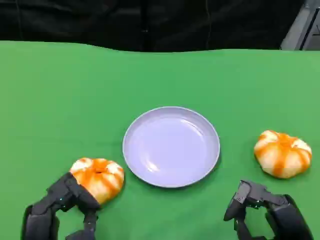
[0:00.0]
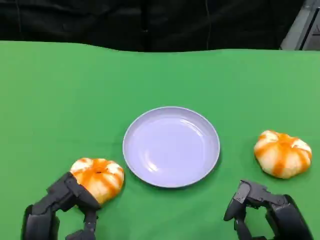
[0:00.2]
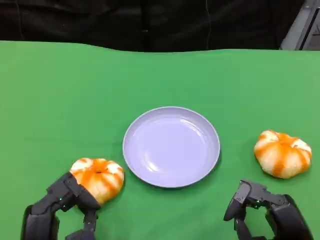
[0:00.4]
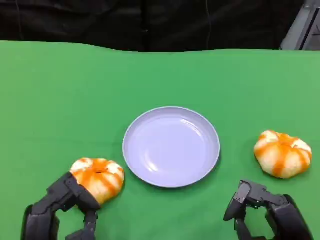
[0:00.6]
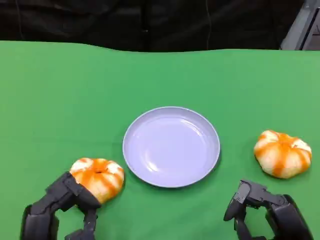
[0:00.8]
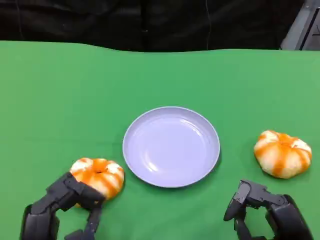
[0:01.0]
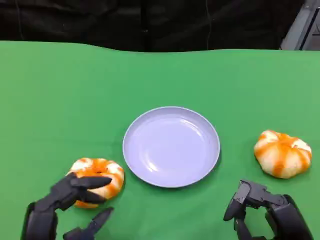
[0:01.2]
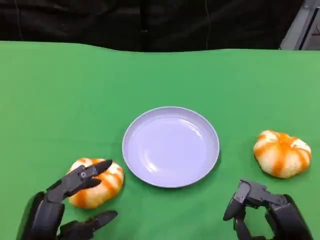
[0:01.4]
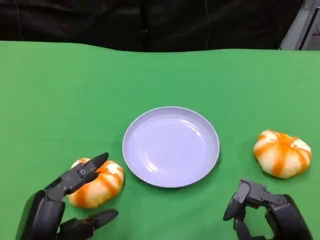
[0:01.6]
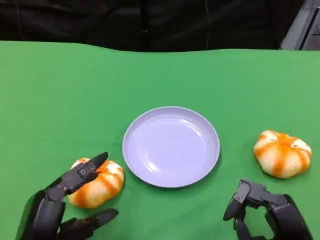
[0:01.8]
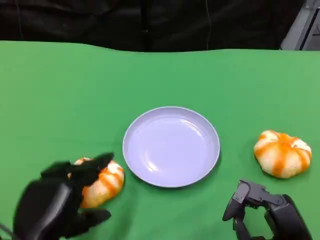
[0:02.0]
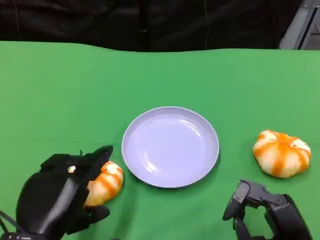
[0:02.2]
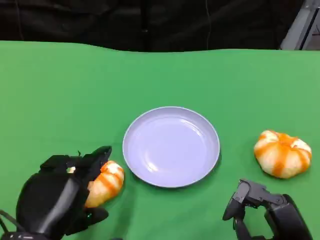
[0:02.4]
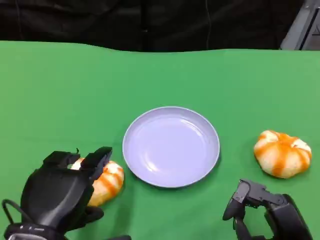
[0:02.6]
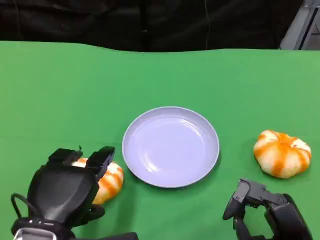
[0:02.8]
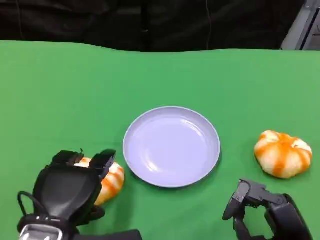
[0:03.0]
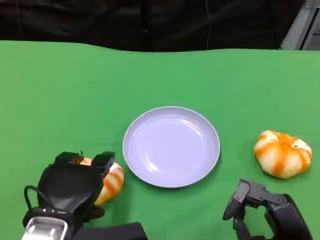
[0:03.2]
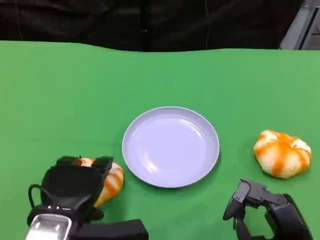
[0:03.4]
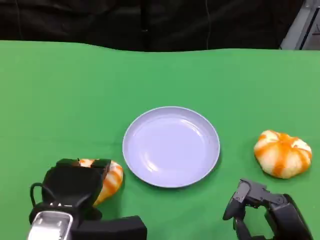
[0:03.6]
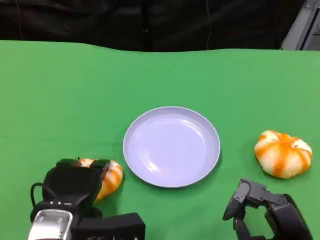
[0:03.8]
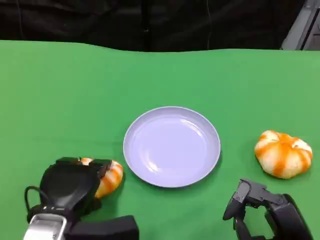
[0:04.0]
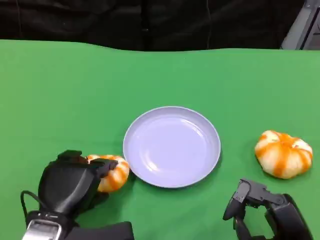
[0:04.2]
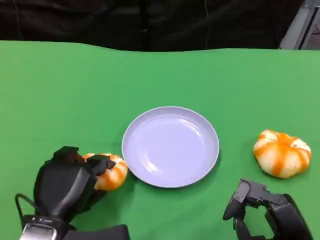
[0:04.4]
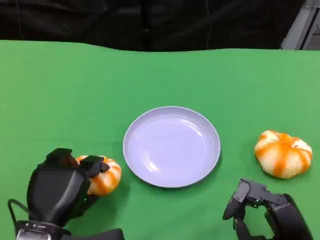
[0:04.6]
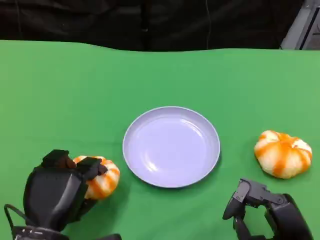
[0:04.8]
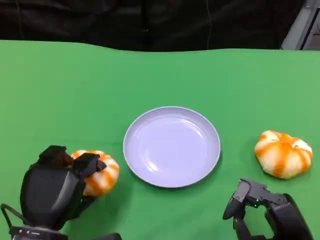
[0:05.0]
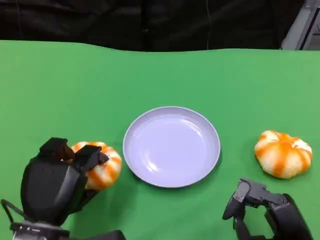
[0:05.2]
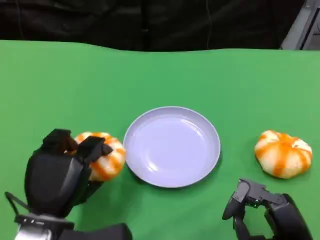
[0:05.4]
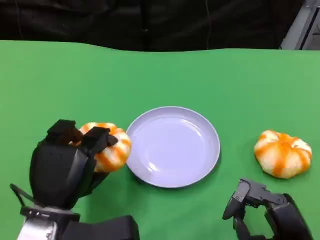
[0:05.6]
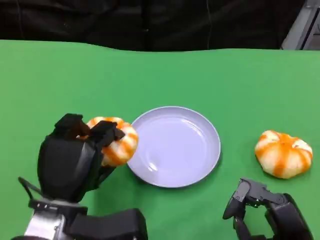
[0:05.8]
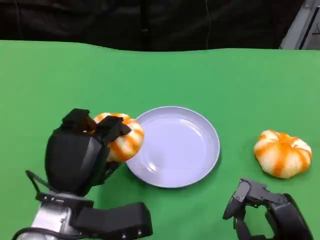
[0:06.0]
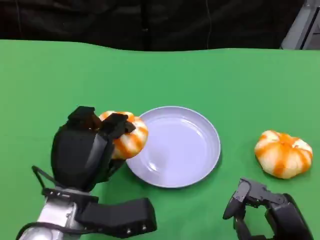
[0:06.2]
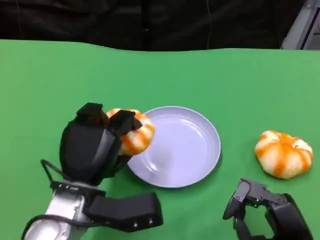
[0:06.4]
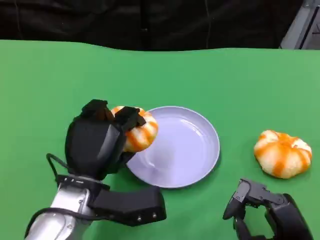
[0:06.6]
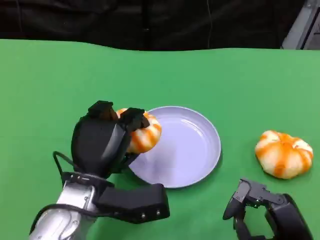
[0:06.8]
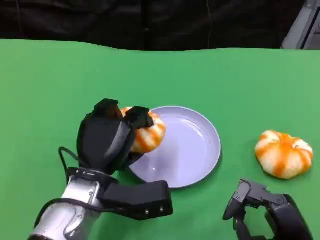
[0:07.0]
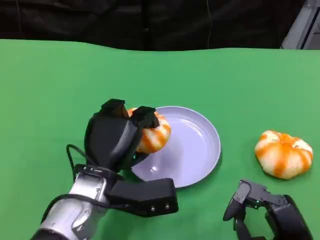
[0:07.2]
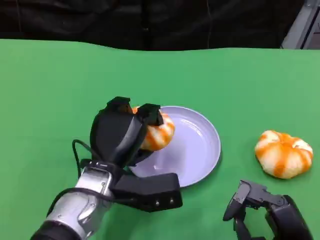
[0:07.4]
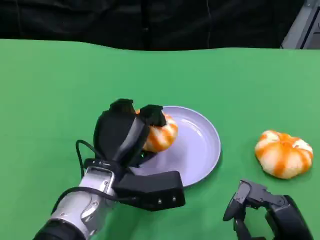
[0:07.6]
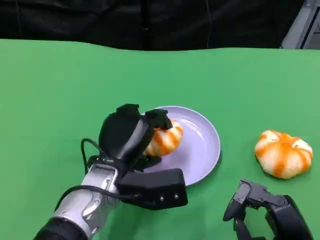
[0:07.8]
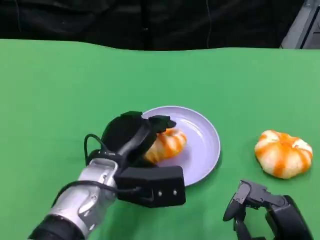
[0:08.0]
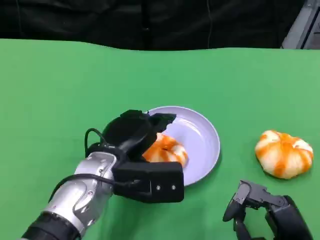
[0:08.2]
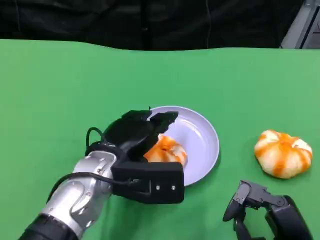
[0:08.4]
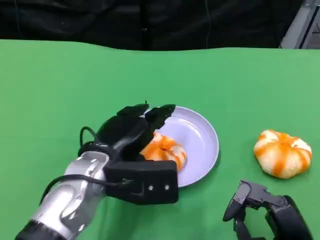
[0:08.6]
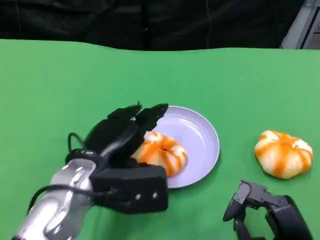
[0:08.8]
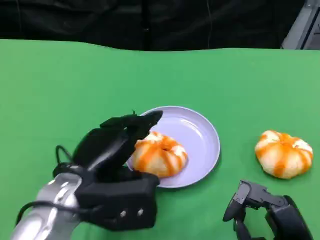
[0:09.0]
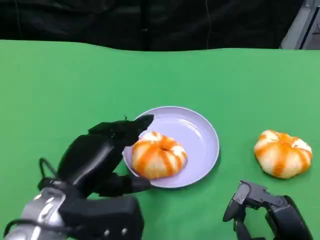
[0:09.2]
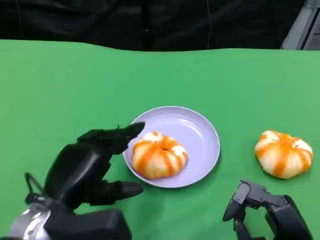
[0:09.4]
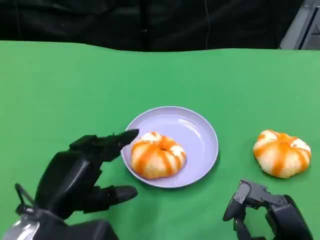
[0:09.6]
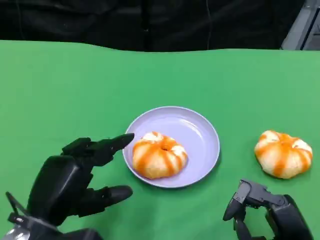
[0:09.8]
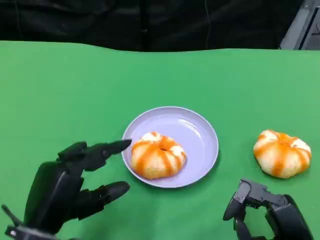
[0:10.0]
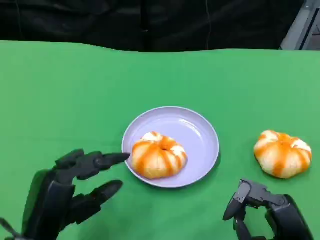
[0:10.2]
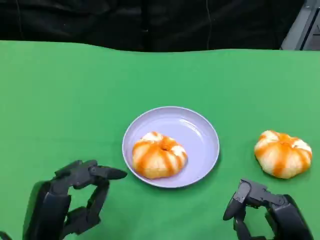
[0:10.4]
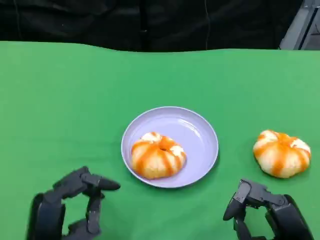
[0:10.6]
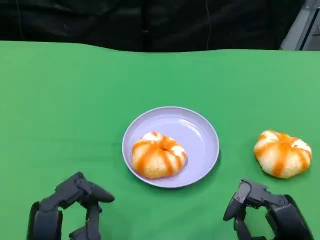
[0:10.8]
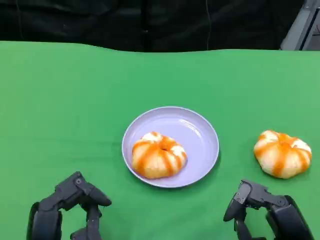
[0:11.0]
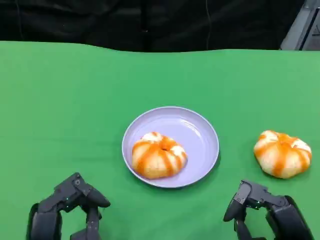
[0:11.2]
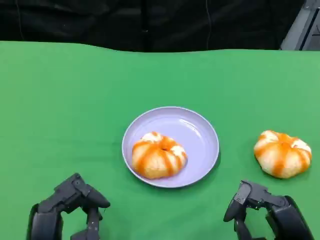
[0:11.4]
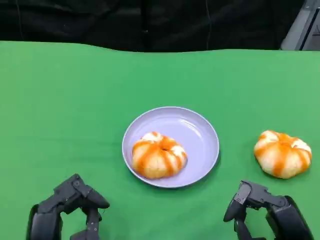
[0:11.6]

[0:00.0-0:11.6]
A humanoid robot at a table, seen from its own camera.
Task of the whole recording: Grasp the bread from the table and place it into the plate.
0:01.4 to 0:02.8: The left hand changes place by roughly 5 cm.
0:02.8 to 0:04.4: The left hand is displaced downward by approximately 5 cm.
0:04.4 to 0:05.8: There are only small adjustments of the hands.
0:05.8 to 0:07.2: The left hand travels to the right by approximately 5 cm.
0:07.2 to 0:08.8: The left hand changes place by approximately 5 cm.
0:08.8 to 0:10.2: The left hand goes roughly 10 cm backward and to the left.

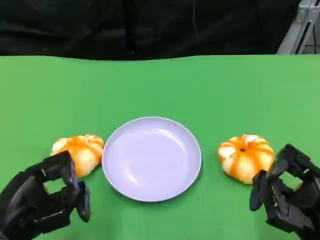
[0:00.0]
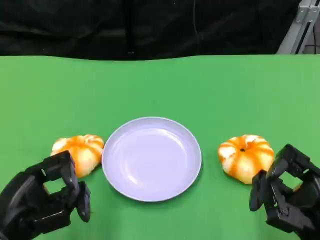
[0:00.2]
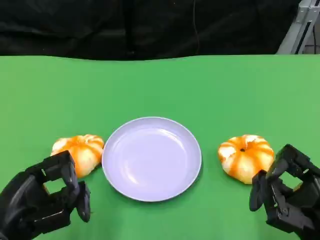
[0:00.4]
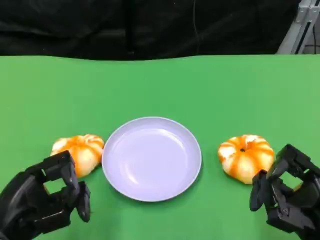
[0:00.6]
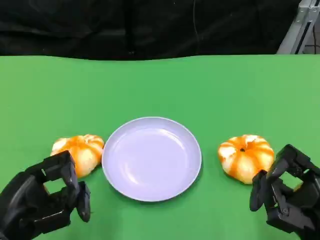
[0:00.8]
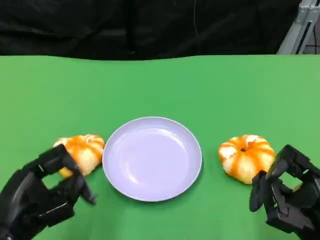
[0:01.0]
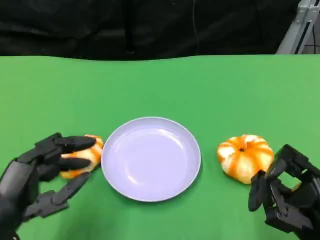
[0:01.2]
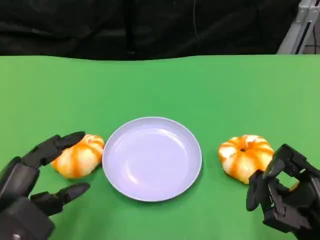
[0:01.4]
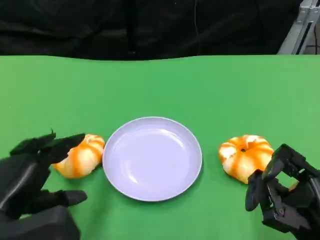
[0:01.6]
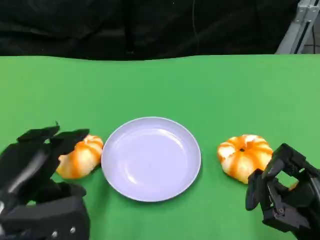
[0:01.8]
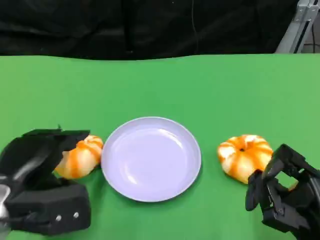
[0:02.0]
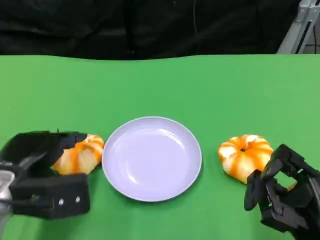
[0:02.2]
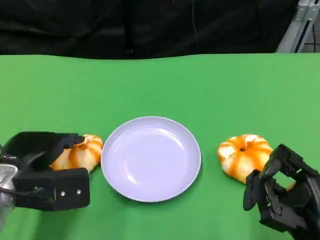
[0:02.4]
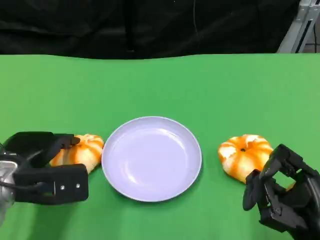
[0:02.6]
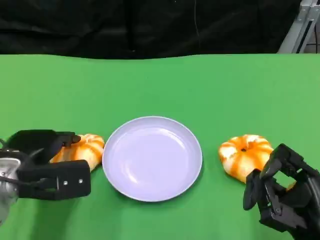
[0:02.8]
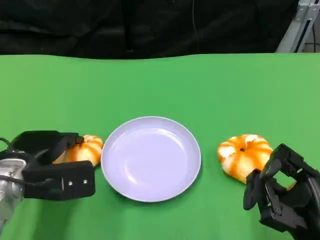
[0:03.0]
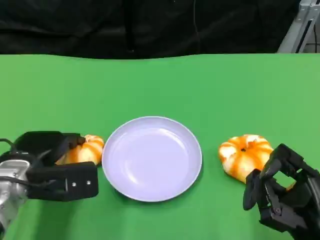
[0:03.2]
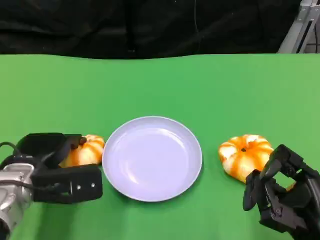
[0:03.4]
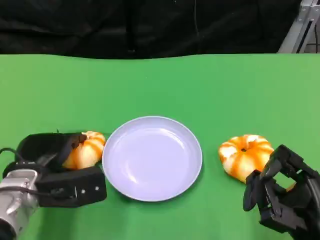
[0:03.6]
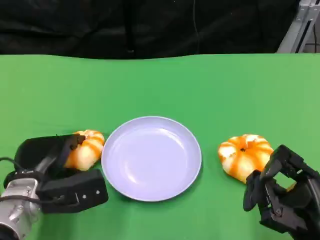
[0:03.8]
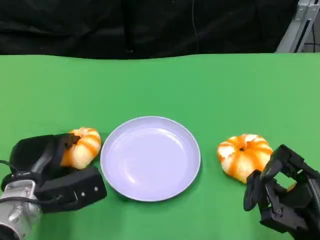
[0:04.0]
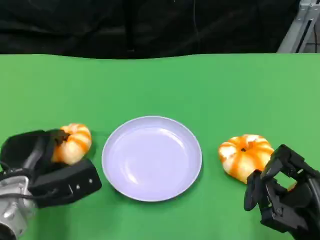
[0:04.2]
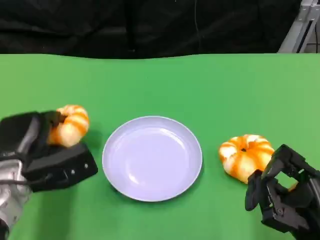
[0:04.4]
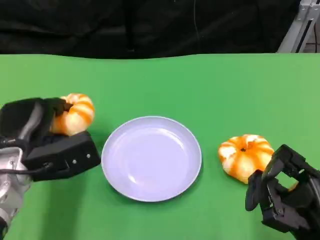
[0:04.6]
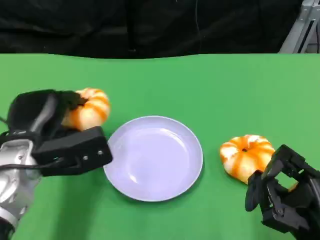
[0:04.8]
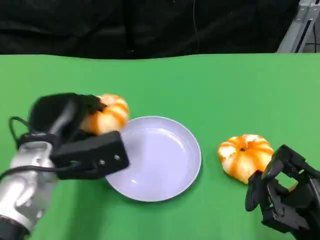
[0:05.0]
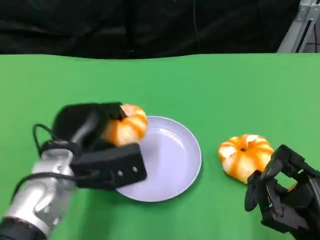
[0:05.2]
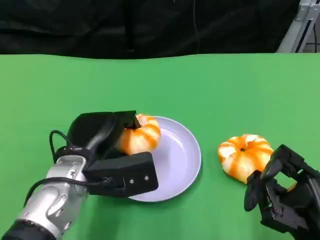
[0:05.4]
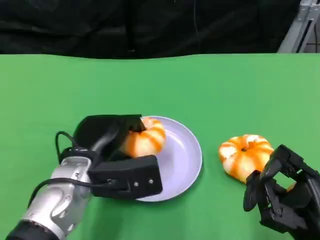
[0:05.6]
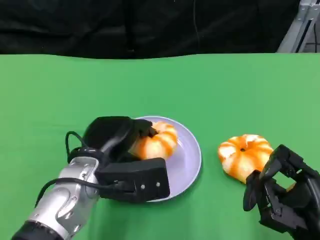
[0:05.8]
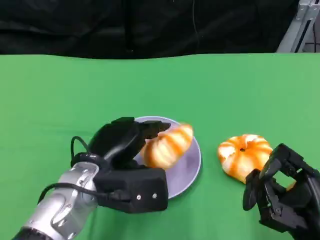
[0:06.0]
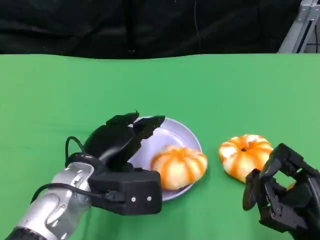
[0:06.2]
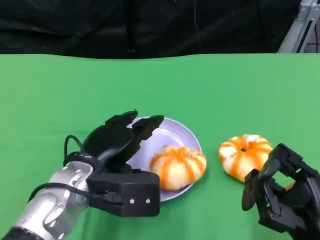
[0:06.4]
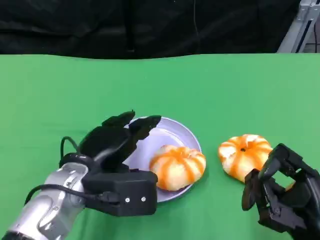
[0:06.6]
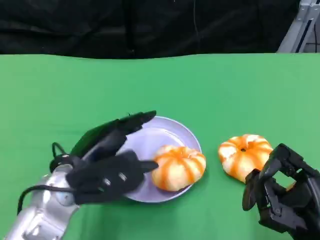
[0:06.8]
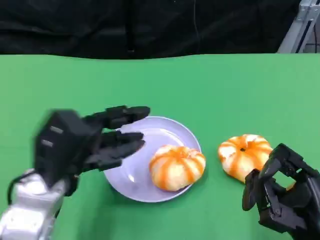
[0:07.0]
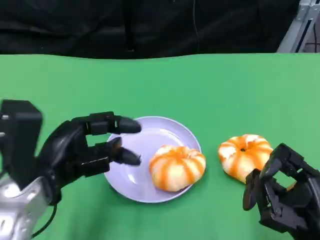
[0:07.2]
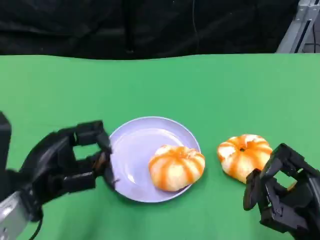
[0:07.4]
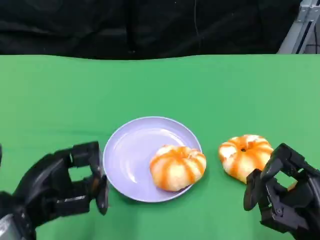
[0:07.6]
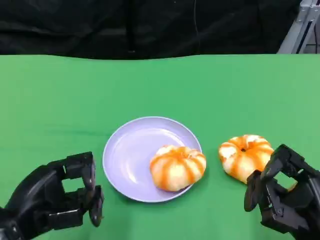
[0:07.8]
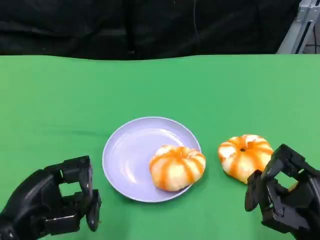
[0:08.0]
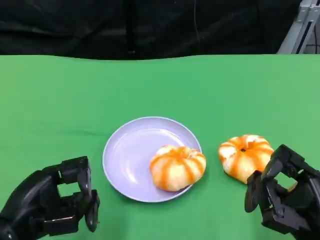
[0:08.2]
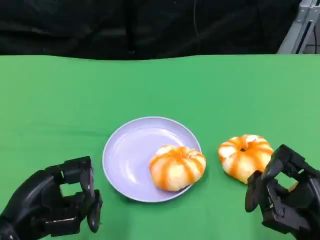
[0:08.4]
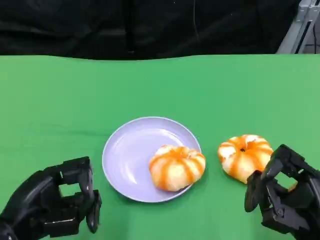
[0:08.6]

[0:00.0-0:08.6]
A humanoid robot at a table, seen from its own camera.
Task of the whole recording: Grasp the bread from the table and place it into the plate.
0:01.4 to 0:02.8: The left hand moves forward, approximately 10 cm.
0:04.4 to 0:05.8: The left hand is displaced to the right by roughly 10 cm.
0:05.8 to 0:07.2: The left hand is displaced to the left by some 10 cm.
0:07.2 to 0:08.6: The left hand shifts about 5 cm backward.

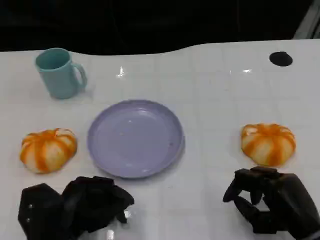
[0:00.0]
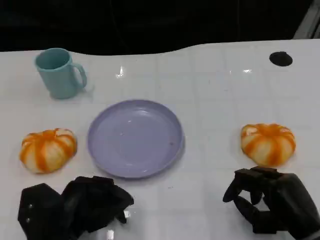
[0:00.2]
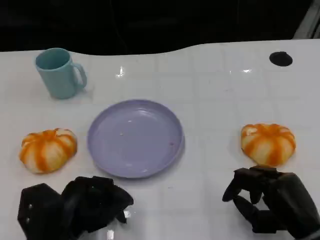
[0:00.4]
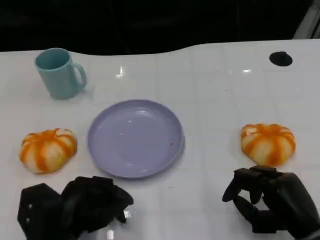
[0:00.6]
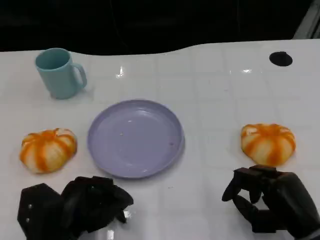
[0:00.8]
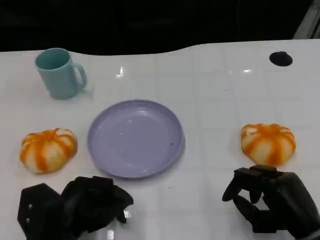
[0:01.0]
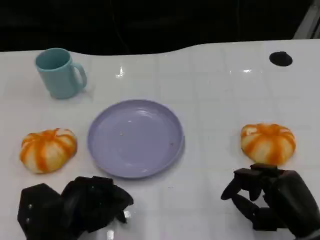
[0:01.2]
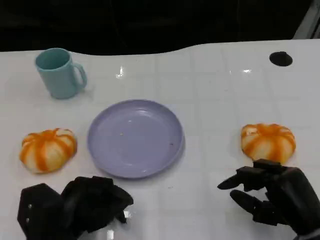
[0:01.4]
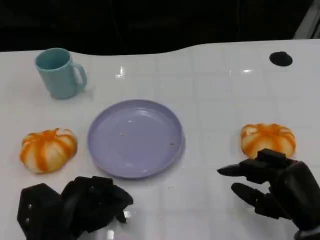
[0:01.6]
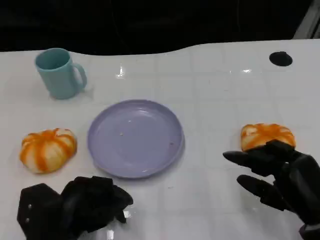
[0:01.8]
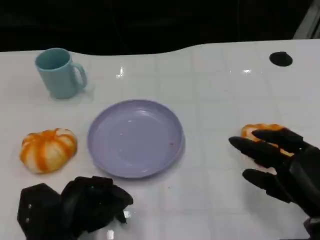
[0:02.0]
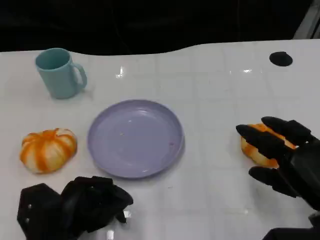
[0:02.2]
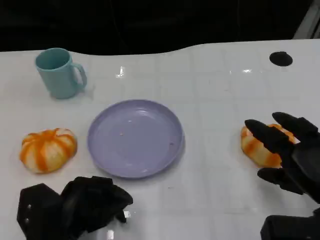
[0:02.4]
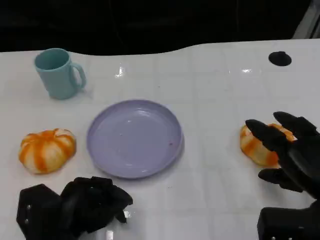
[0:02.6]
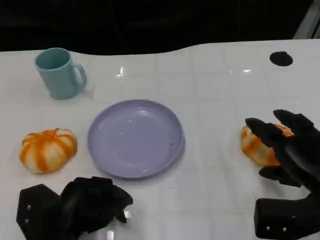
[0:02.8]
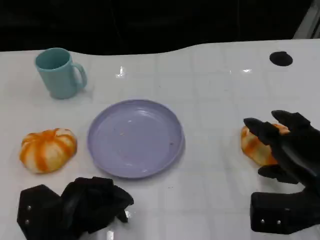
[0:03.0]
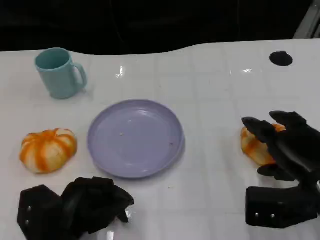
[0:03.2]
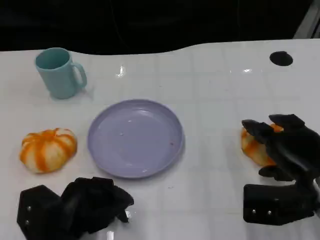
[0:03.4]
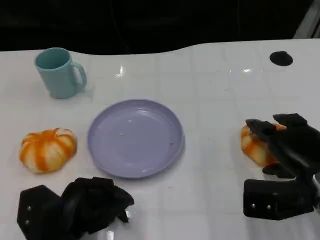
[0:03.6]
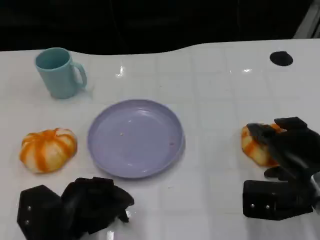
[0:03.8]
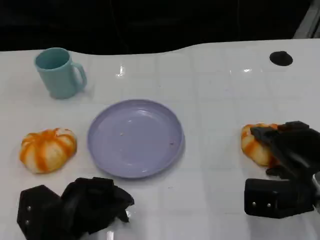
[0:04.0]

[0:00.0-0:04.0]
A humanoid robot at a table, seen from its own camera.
Task of the whole recording: Grasp the bread from the table and place it into the plate.
0:00.0 to 0:01.4: The two hands keep their place.
0:01.4 to 0:02.6: The right hand changes place by about 5 cm.
0:02.6 to 0:04.0: The hands make only small movements.
